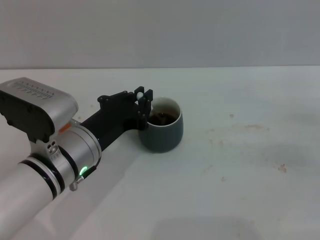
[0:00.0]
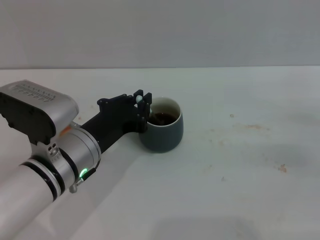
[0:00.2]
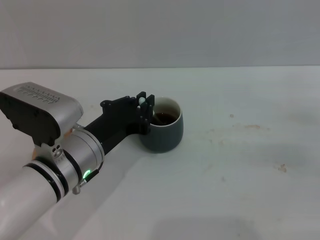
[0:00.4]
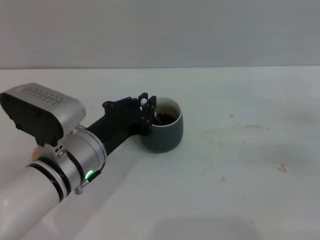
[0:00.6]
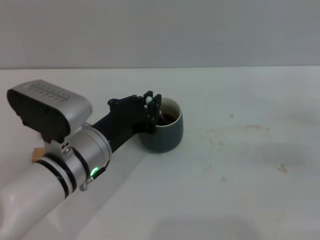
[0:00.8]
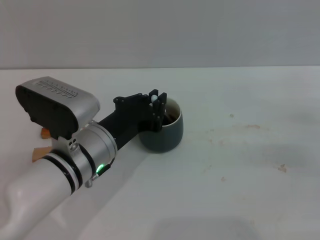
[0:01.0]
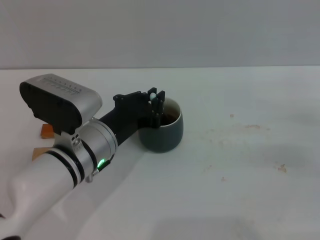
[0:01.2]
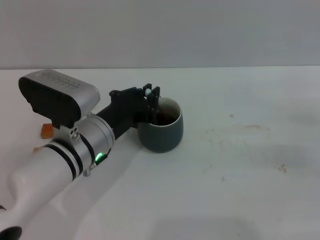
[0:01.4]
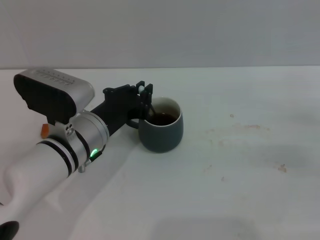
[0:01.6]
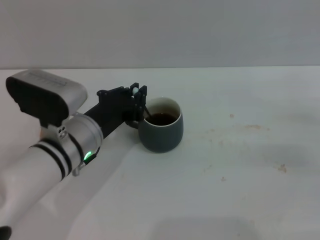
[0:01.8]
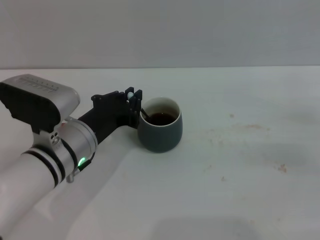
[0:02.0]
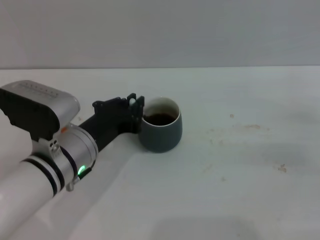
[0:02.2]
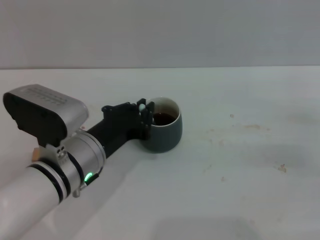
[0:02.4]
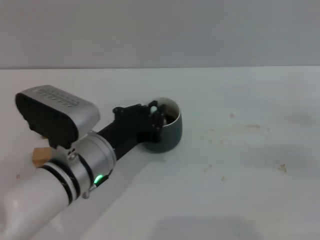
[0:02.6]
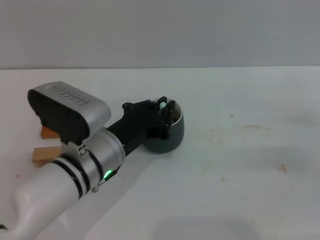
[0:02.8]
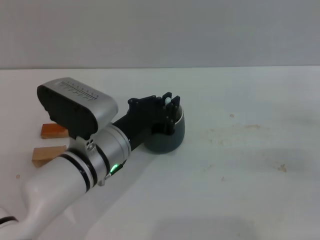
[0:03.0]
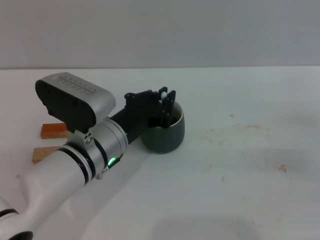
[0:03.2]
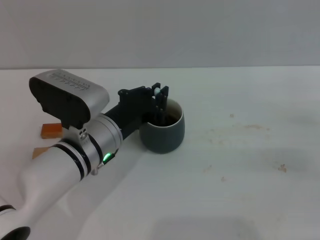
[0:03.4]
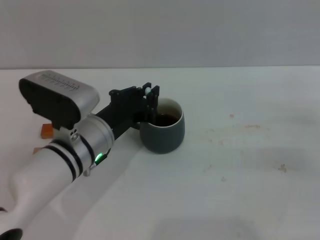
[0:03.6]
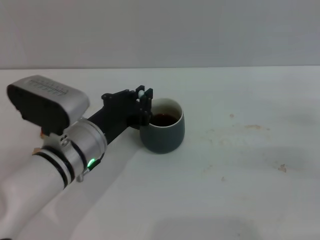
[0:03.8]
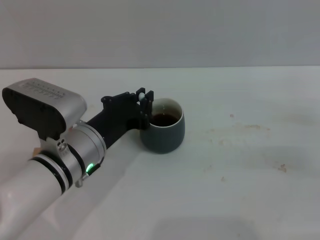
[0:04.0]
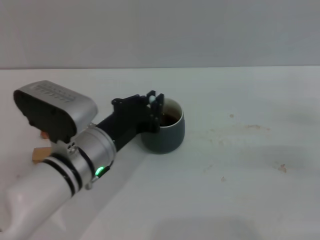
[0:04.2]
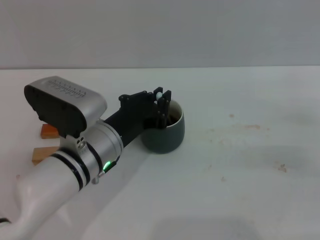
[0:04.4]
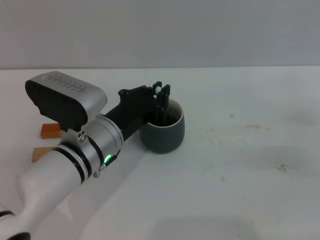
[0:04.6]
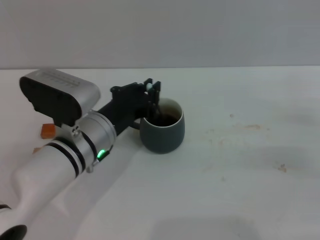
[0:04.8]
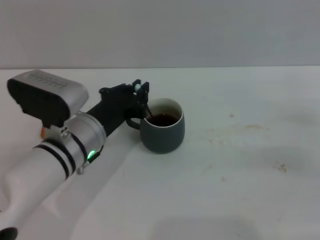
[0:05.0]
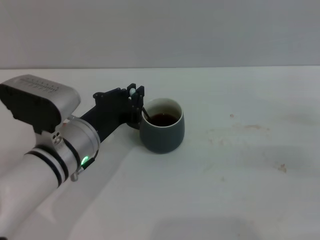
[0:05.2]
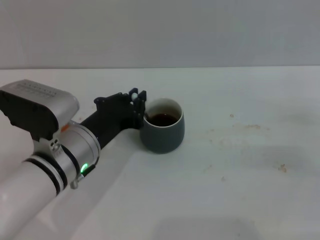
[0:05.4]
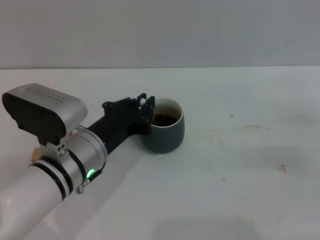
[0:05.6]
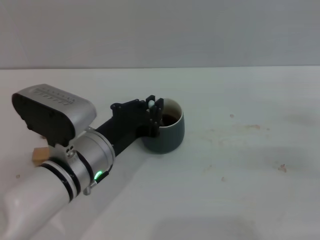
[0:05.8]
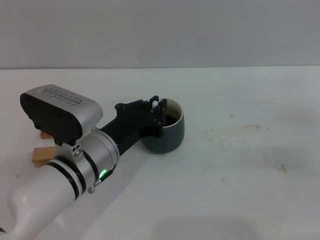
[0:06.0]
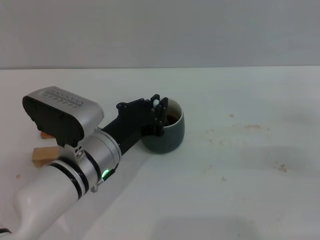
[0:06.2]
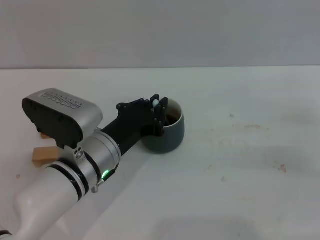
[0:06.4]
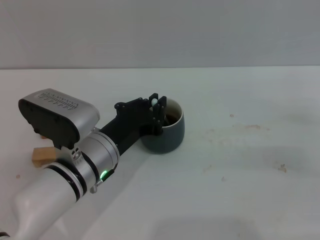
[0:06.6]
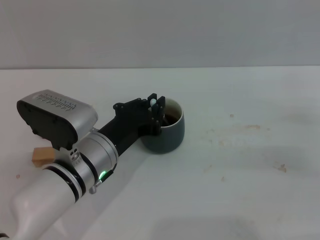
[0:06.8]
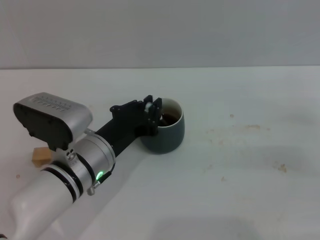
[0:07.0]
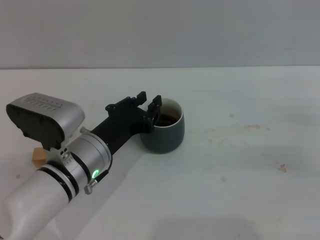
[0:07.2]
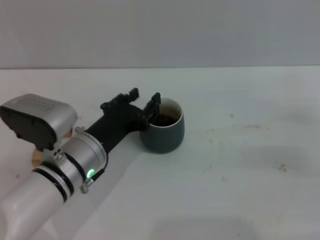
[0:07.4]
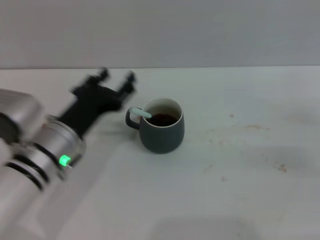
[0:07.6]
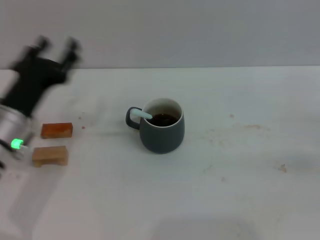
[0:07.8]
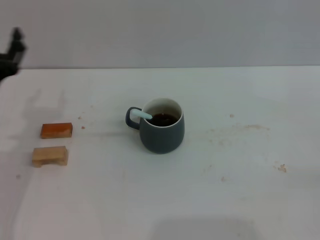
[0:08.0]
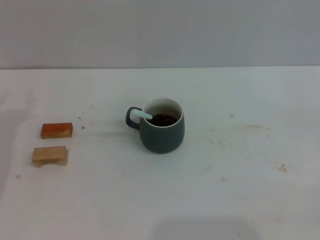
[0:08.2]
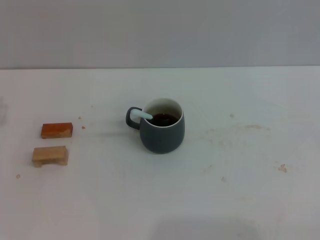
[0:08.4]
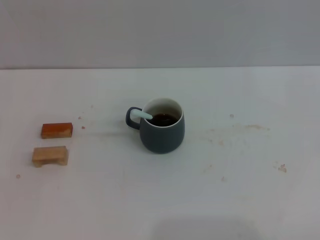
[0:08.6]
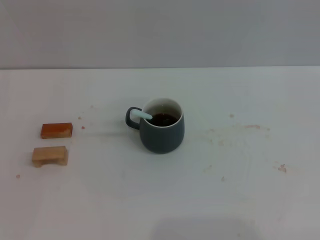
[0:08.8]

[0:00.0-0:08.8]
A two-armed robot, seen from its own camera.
Task of the whole recording: Move the grey cup to the center, lift the blue spoon, stir it three times in the cup, and put the spoon into the cup.
Step, 0:00.0 to 0:07.4: Stir the coffee in the cup with the left gripper.
0:00.0 to 0:07.4: There are only small adjustments of the grippers.
0:07.4 to 0:08.8: The left gripper is displaced to the left by some 20 cm, and opens. The right gripper heads backward and to the right, covering some 20 cm.

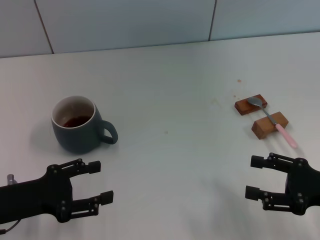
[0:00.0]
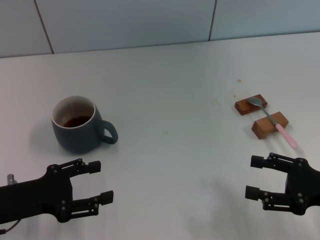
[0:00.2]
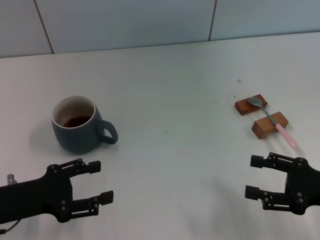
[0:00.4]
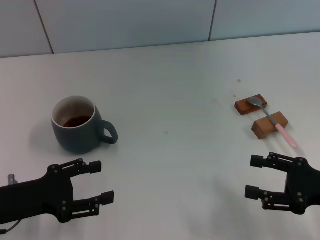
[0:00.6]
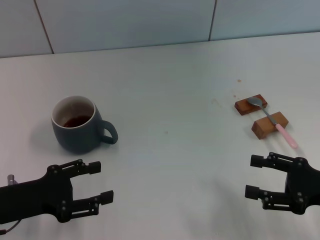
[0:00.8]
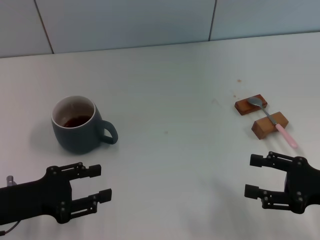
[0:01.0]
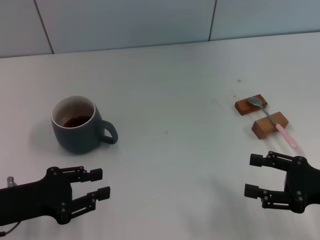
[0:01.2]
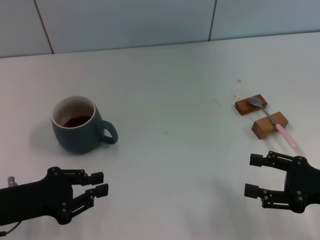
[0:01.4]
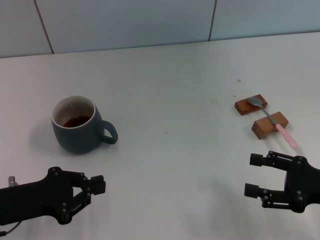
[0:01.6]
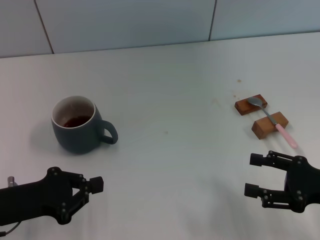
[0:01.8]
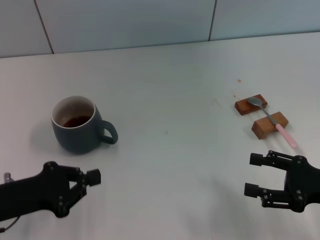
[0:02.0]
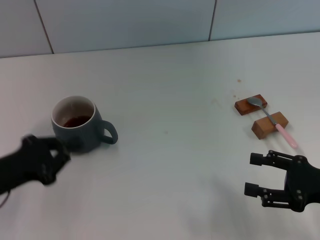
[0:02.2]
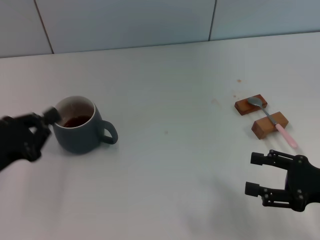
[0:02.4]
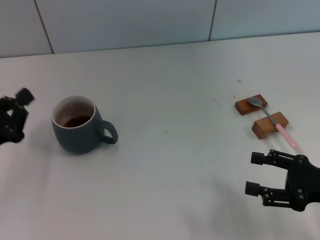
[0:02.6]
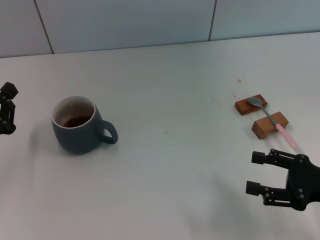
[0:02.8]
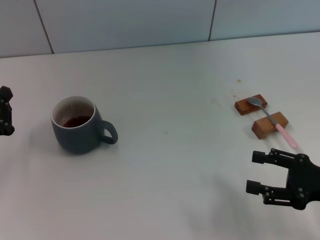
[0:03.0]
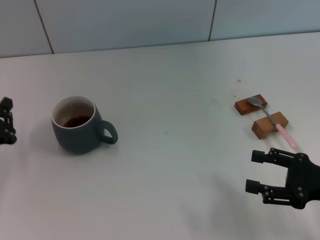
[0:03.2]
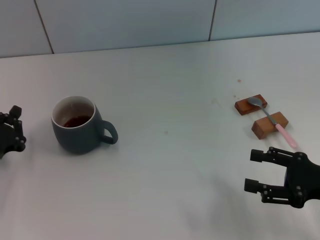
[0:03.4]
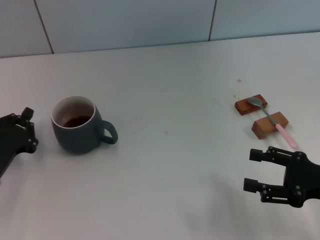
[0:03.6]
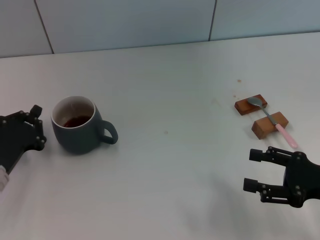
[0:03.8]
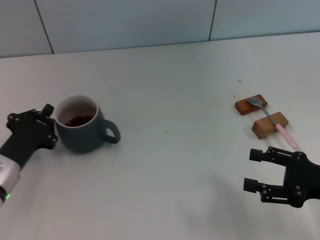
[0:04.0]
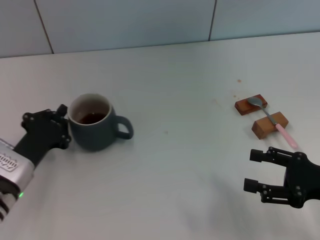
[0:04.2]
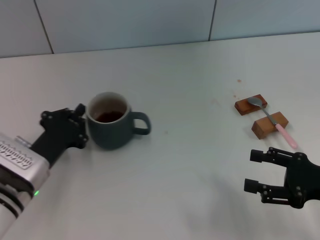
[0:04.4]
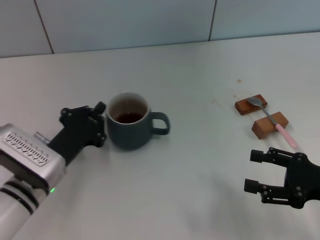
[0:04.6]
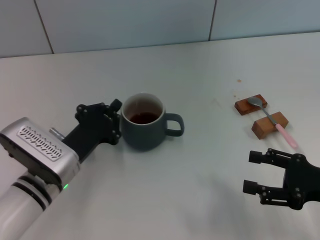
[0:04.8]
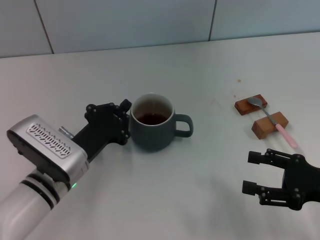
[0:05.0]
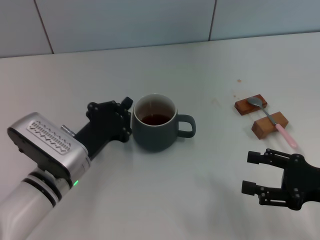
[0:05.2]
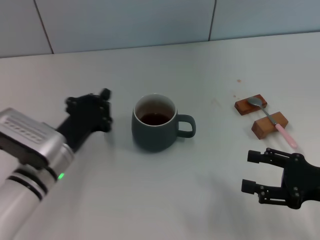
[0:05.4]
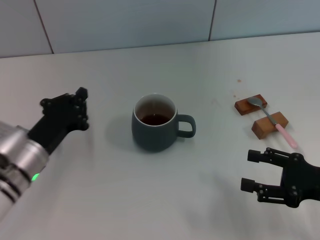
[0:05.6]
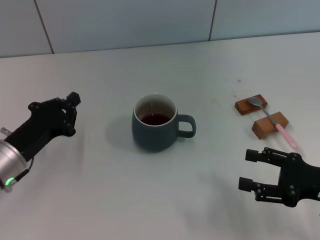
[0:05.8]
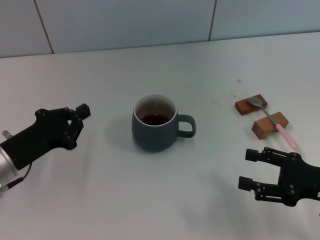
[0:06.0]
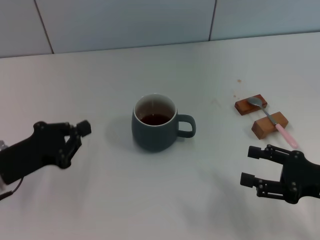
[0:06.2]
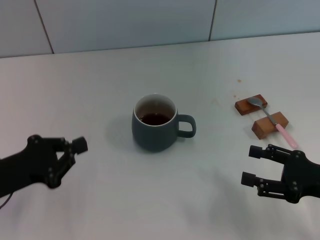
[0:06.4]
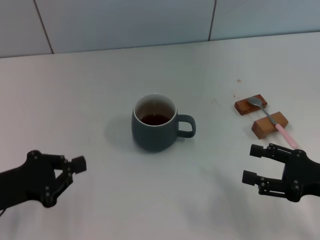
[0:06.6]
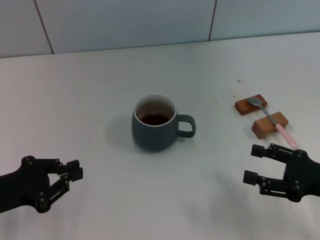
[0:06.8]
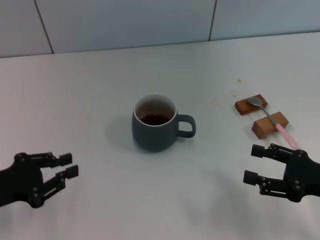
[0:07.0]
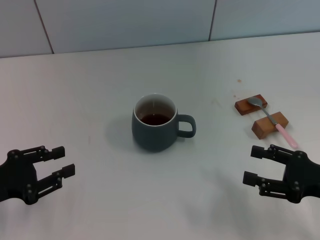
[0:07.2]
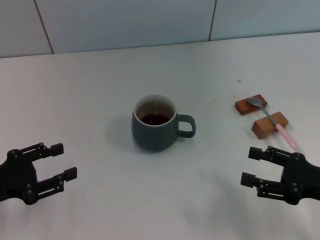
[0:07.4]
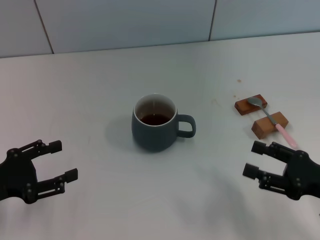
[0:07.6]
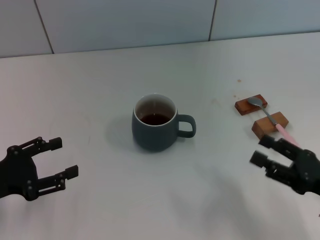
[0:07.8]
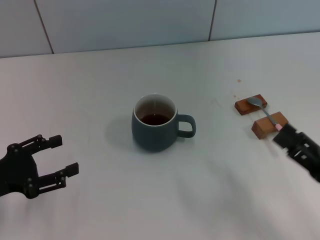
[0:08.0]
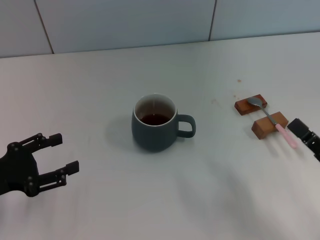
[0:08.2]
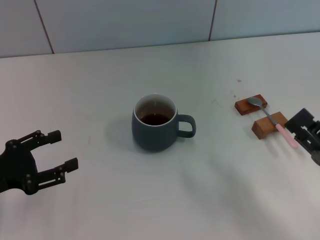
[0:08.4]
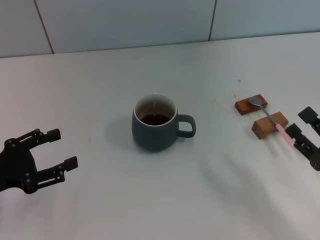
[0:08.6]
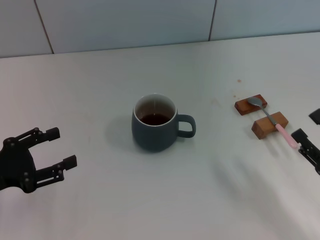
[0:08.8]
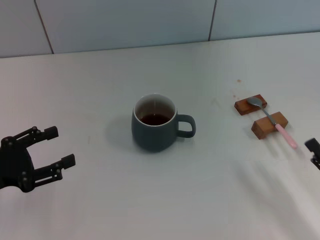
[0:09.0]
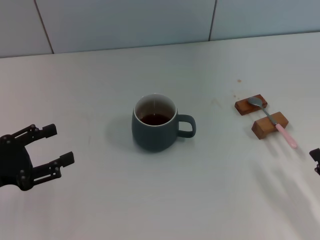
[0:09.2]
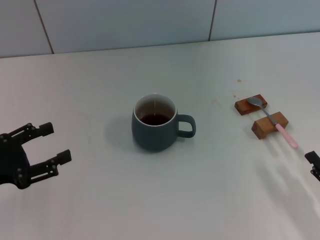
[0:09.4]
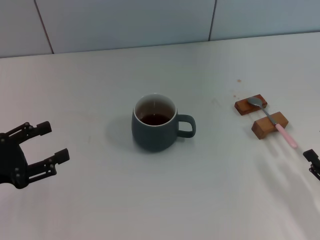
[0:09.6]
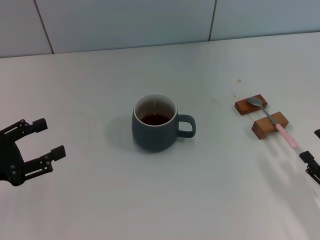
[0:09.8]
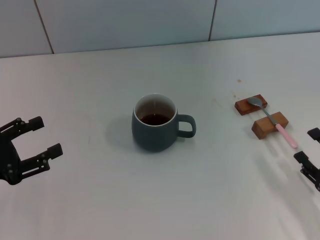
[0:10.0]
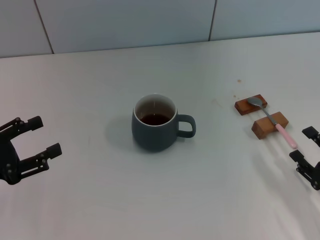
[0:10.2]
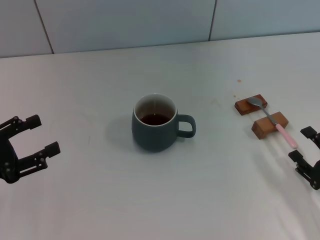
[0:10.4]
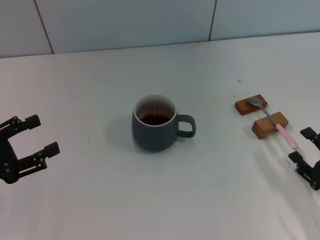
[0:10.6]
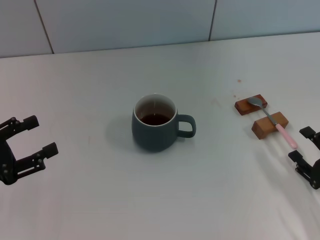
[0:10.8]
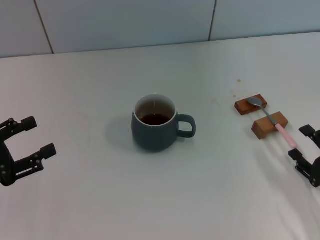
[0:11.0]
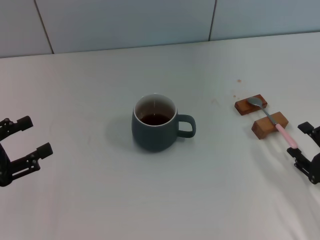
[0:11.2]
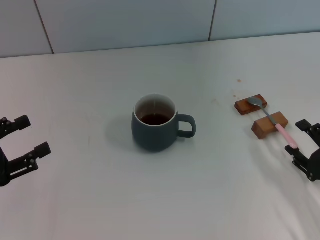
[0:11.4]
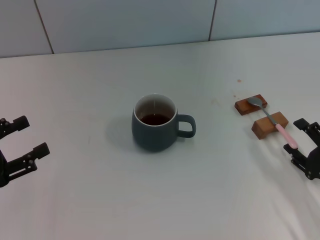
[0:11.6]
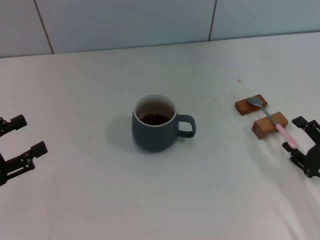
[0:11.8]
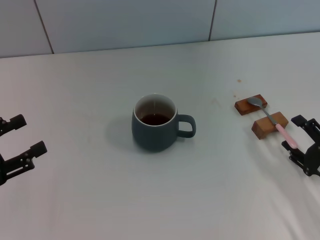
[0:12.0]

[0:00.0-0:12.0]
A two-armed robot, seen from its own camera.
Task of the whole recording: Move the grey cup to the center, lift the pink spoon, stir it three times in the cup, and put the spoon into the cup.
Step, 0:00.0 to 0:05.2: Move the cup with coffee to the center of view with the left gripper.
0:00.0 to 0:01.6: The left gripper closes its fingers.
0:03.0 to 0:04.4: The left gripper goes roughly 10 cm to the right.
0:04.4 to 0:06.0: The left gripper shifts by roughly 5 cm.
0:06.0 to 0:07.6: The left gripper goes approximately 5 cm to the left, and opens.
0:07.6 to 0:09.0: The right gripper travels backward by roughly 5 cm.
0:09.0 to 0:12.0: There are only small adjustments of the grippers.

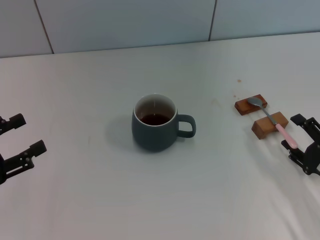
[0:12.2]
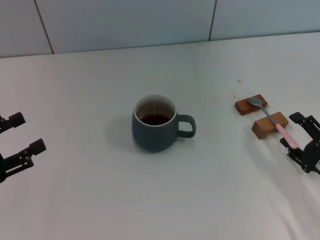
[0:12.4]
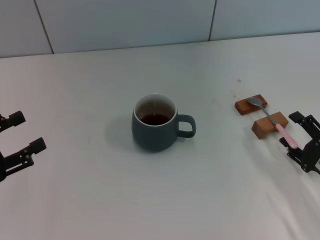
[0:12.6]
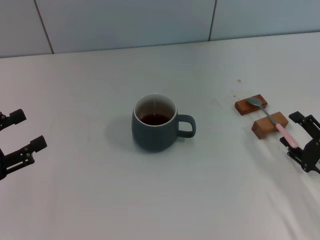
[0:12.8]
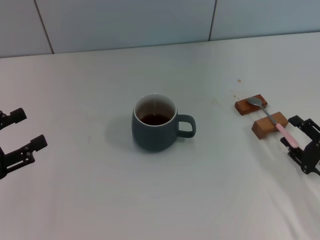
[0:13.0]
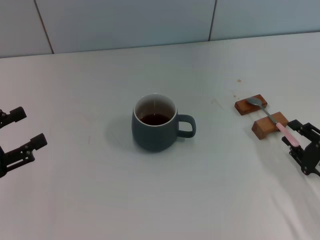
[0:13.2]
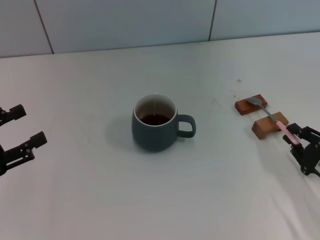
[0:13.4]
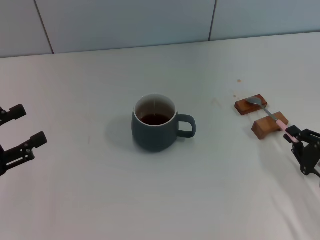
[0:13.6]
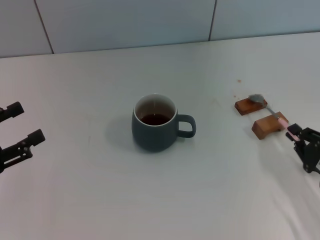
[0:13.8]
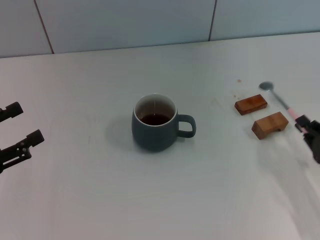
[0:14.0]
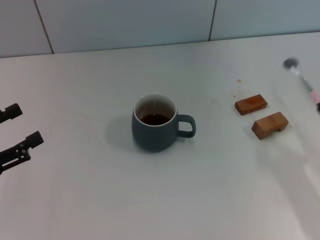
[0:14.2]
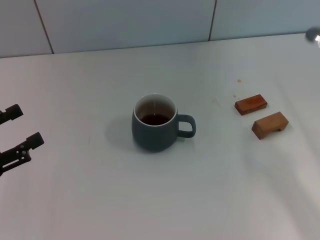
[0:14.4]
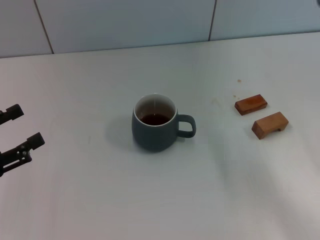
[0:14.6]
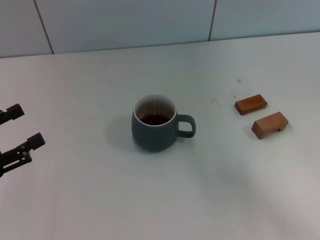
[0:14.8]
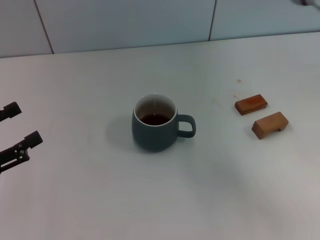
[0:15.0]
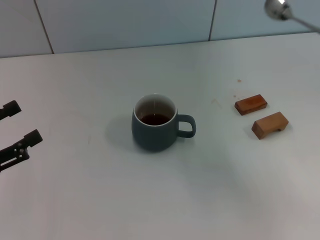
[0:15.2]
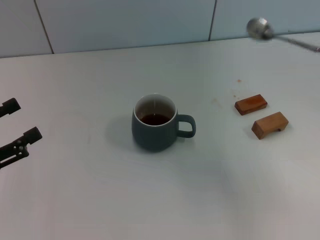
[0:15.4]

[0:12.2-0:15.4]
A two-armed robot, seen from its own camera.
Task of the whole recording: Move the grey cup to the center, lift the pink spoon, stir it three times in the cup, and put the spoon into the cup.
Step, 0:12.2 to 0:14.2: Pick up the spoon with the right gripper.
0:12.2 to 0:13.8: The right gripper closes.
0:13.8 to 0:15.4: The right gripper is displaced upward and to the right by some 20 cm.
